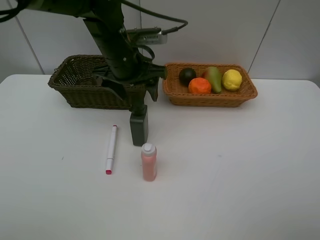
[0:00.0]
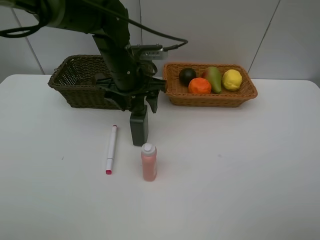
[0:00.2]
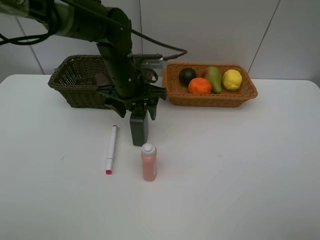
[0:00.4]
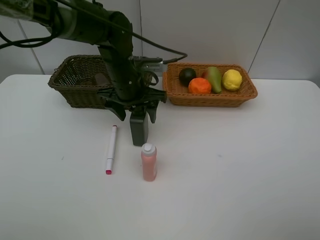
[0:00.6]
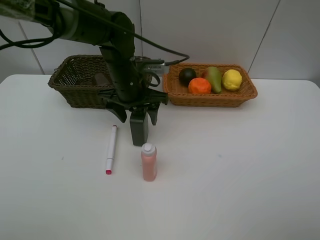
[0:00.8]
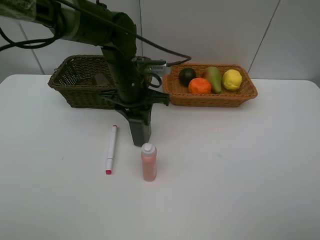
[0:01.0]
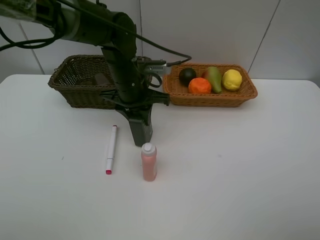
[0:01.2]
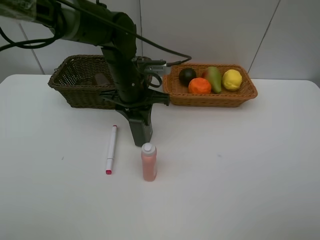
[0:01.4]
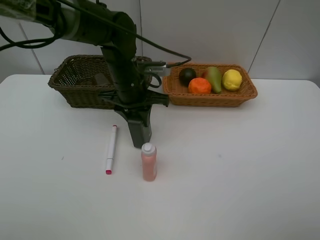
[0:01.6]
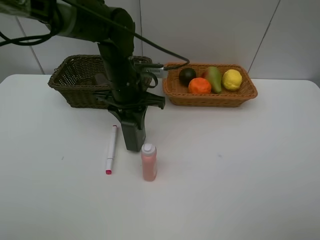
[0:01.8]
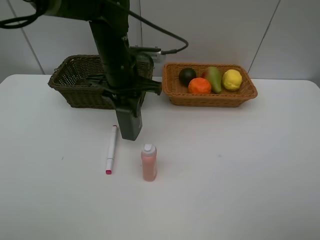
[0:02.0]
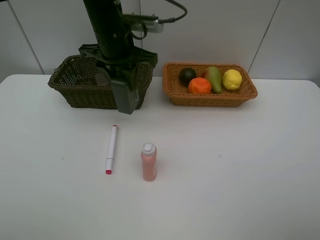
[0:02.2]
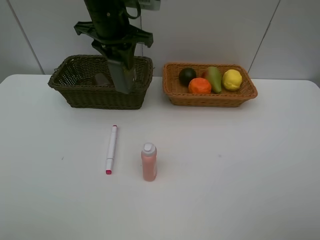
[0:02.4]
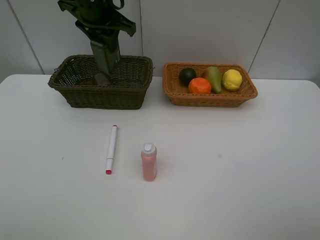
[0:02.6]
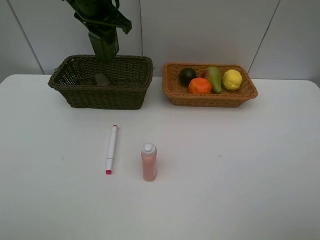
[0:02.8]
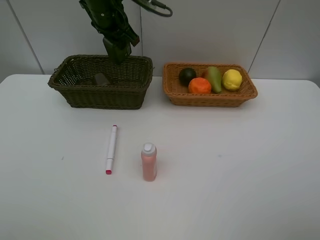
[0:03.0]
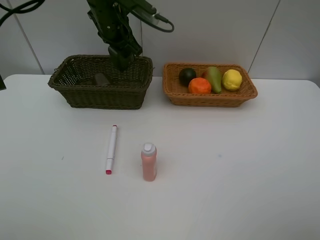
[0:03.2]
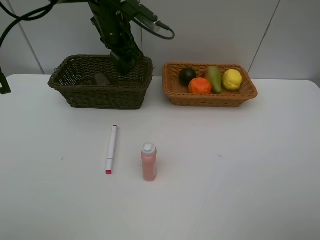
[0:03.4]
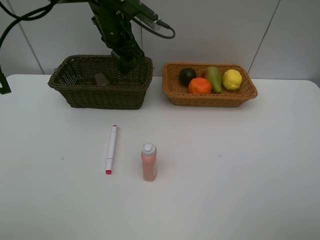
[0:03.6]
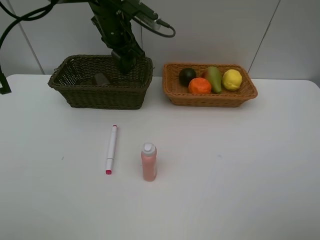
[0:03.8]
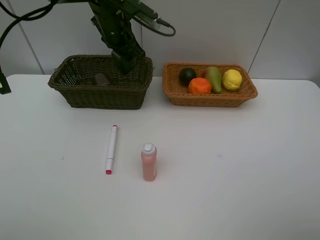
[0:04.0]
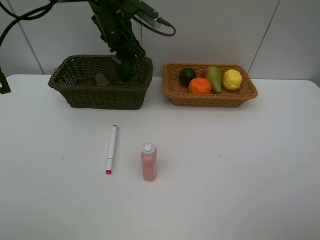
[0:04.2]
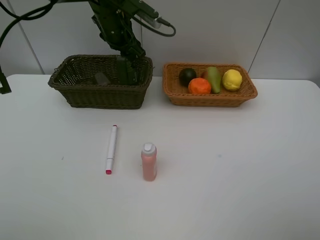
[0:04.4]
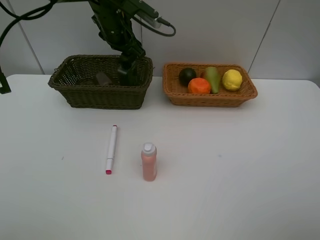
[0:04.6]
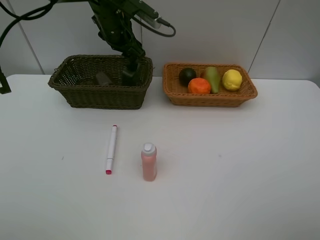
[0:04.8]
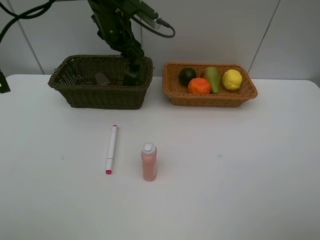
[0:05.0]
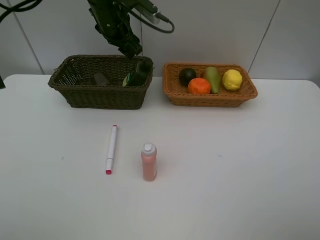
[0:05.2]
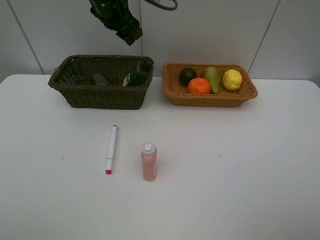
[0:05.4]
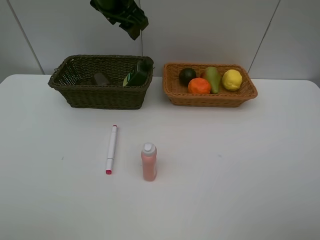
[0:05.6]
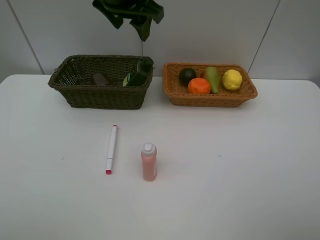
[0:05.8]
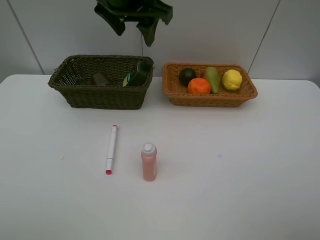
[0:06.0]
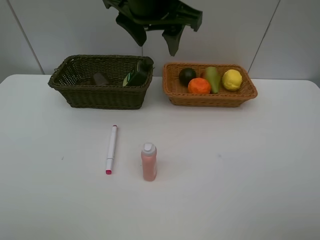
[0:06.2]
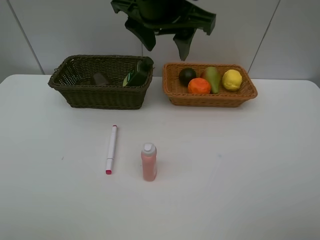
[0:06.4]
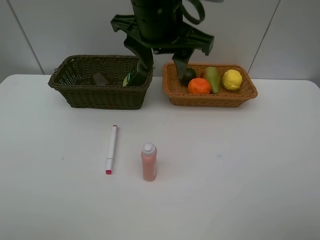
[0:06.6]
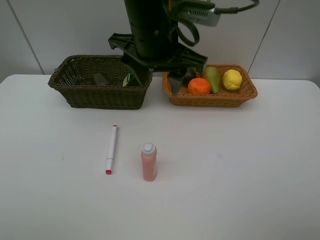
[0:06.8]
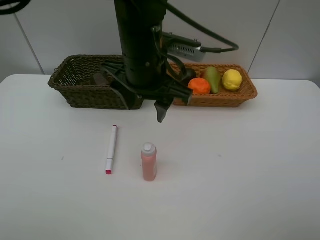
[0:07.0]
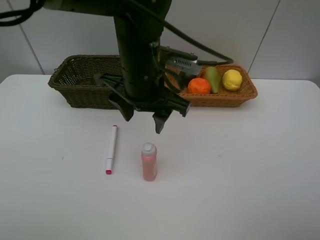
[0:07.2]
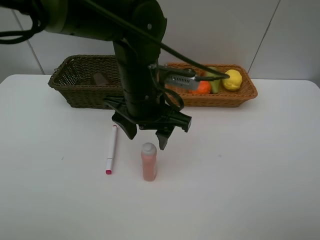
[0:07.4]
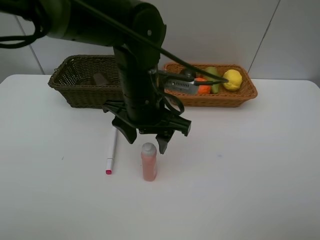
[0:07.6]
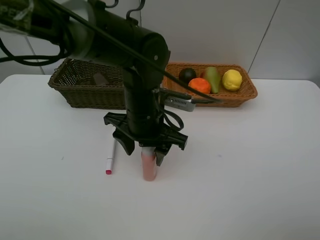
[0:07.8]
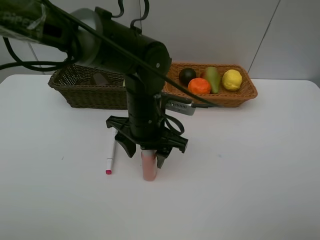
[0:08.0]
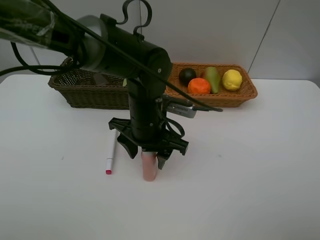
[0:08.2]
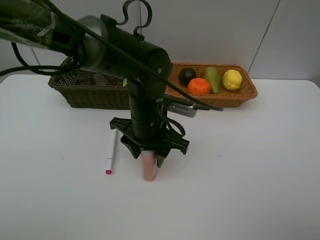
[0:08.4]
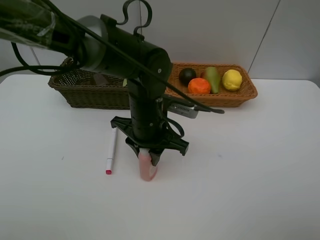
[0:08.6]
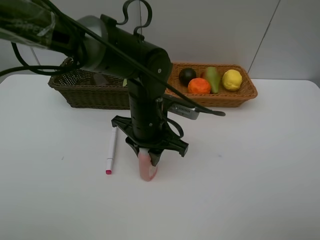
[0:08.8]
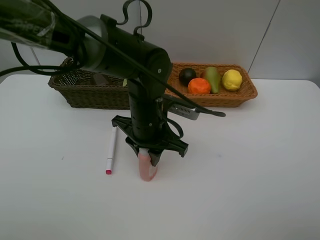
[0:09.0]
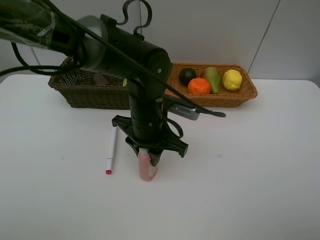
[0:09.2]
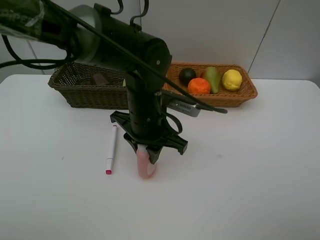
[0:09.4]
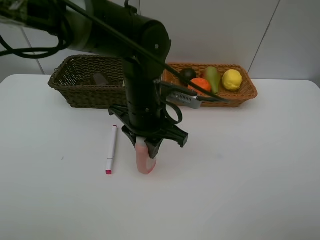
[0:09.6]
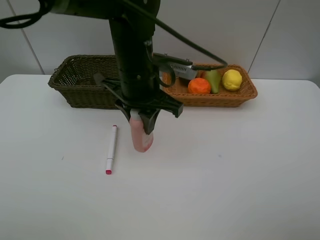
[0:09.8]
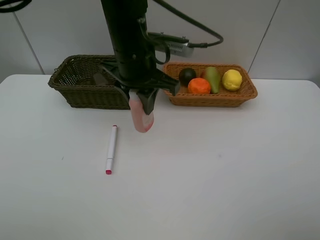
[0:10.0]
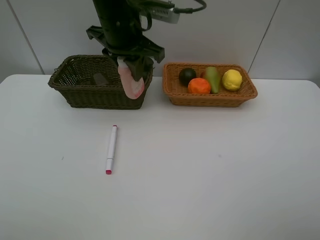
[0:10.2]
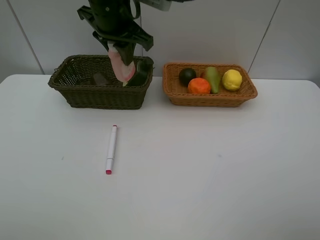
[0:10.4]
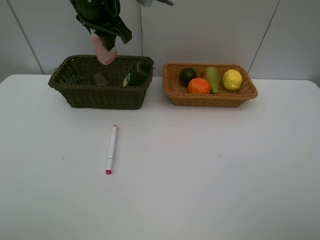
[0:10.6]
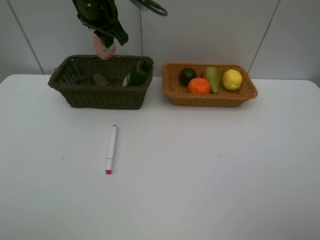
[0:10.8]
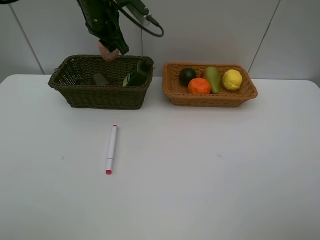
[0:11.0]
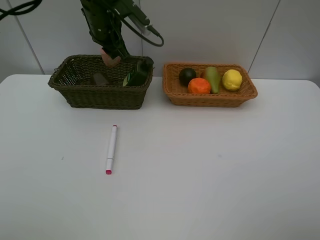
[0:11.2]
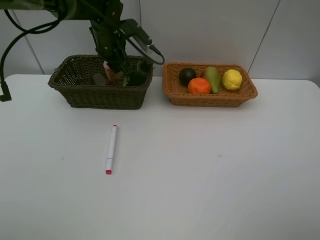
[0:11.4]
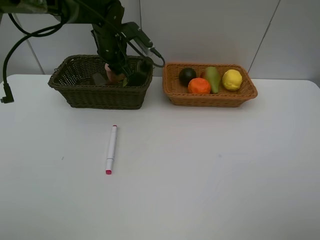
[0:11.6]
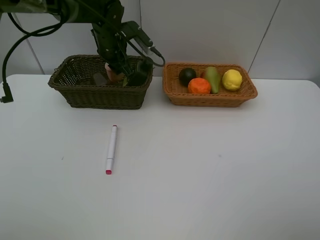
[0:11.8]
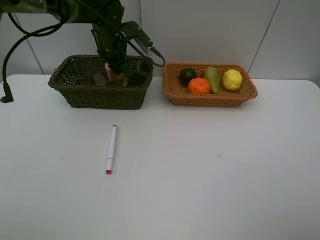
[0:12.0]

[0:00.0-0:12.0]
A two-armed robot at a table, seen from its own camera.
Task of the whole recording: Place multiple objects separately in different baskets.
Step, 0.0 to 2.0 s: Pick up the hard facial cleanser with left gripper.
Step, 2.2 to 5.2 s: Place the hard facial cleanser in the dark basket with left gripper.
Step, 5.4 to 9.4 s: Pick up the laundry detergent with left gripper.
0.0 to 1.6 s: The left gripper is displaced downward by some 5 cm, and closes up.
1.6 to 3.0 s: The left gripper moves upward and forward, approximately 15 cm.
3.0 to 4.4 s: The grippers make only small movements.
4.4 to 6.0 s: The left gripper shifts approximately 15 cm backward, upward and to the right.
6.0 to 7.6 s: The left gripper heads downward and backward, covering approximately 15 cm.
7.6 to 9.0 s: The left gripper ends up some 5 cm from where it was, and closes.
9.0 to 10.4 s: The left gripper travels upward, forward and to the left by approximately 20 cm.
10.4 to 12.0 s: The left gripper heads downward and forward, covering approximately 15 cm.

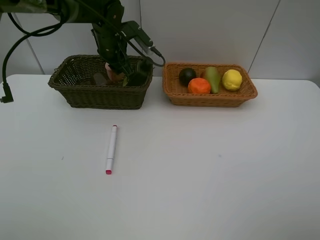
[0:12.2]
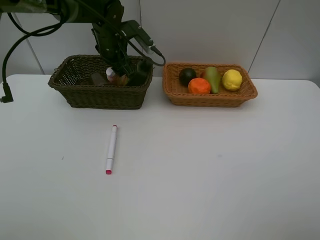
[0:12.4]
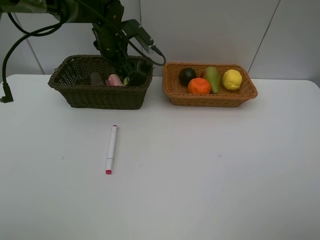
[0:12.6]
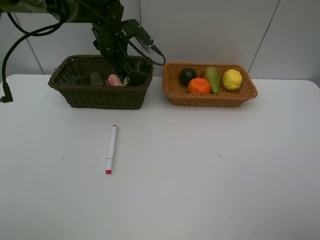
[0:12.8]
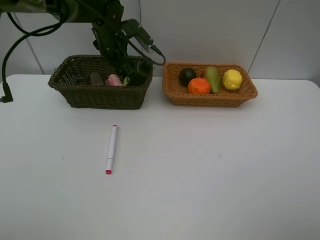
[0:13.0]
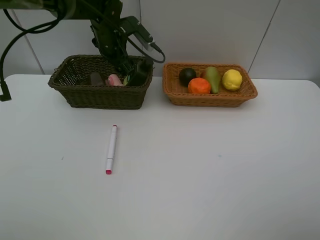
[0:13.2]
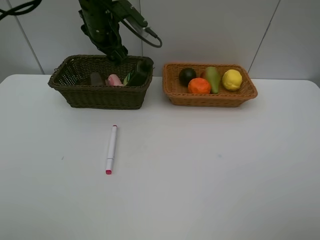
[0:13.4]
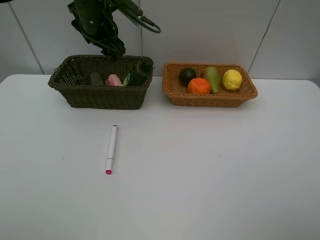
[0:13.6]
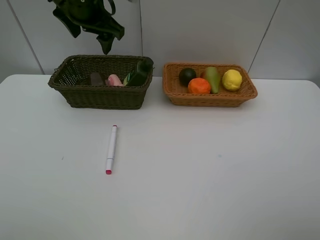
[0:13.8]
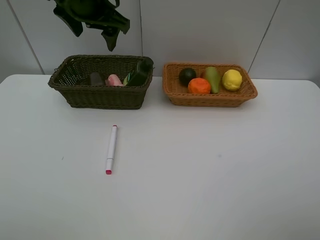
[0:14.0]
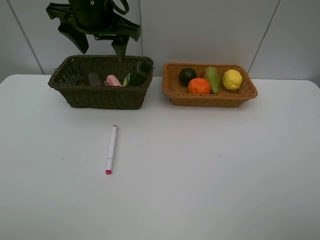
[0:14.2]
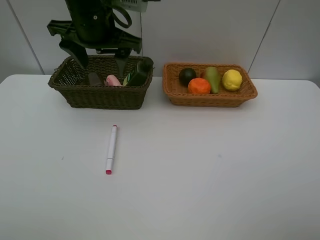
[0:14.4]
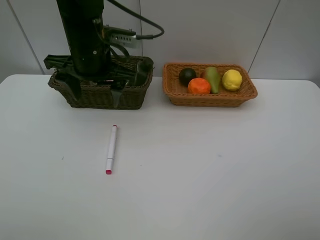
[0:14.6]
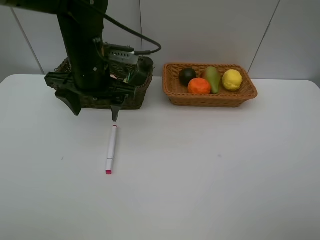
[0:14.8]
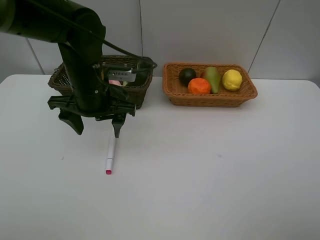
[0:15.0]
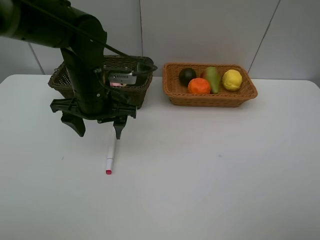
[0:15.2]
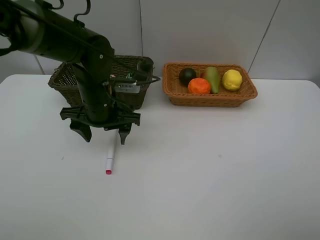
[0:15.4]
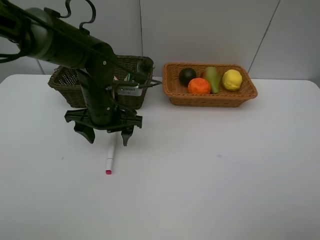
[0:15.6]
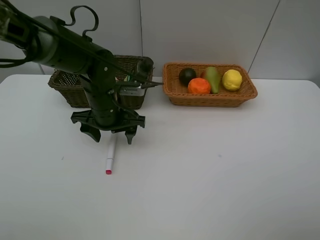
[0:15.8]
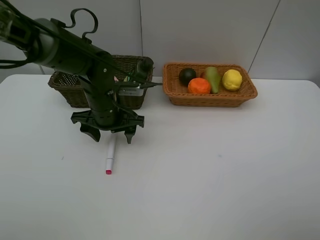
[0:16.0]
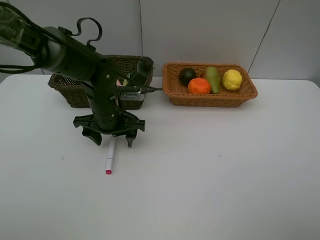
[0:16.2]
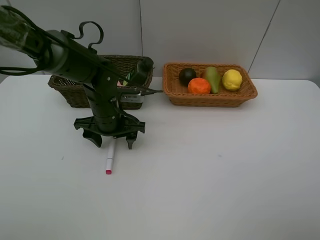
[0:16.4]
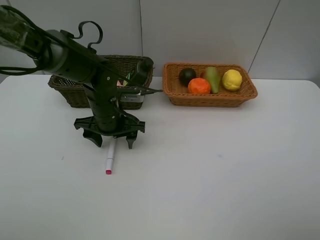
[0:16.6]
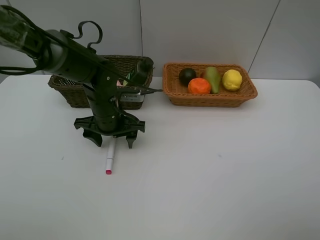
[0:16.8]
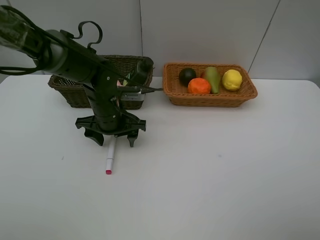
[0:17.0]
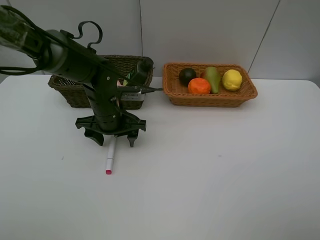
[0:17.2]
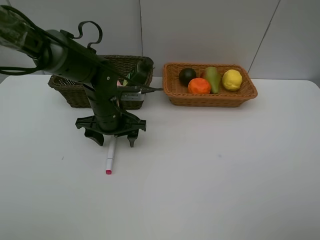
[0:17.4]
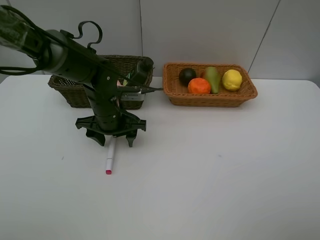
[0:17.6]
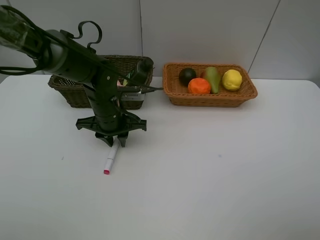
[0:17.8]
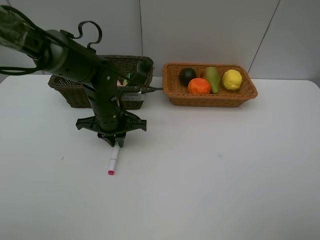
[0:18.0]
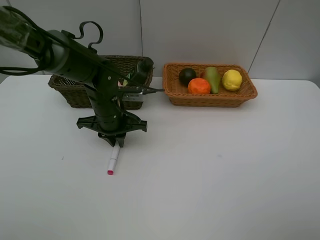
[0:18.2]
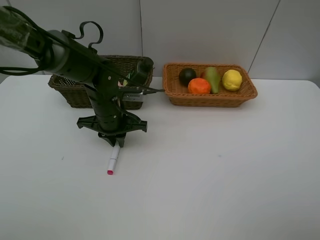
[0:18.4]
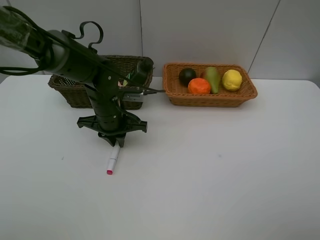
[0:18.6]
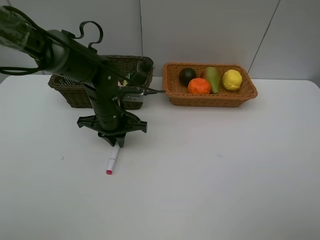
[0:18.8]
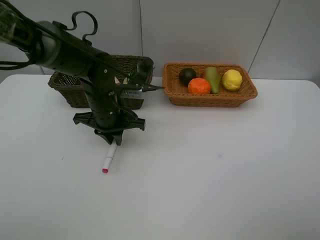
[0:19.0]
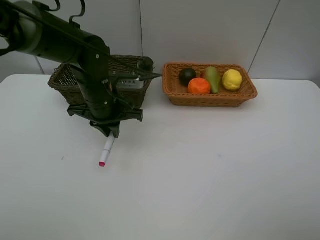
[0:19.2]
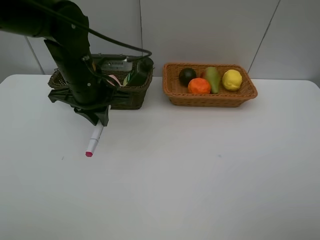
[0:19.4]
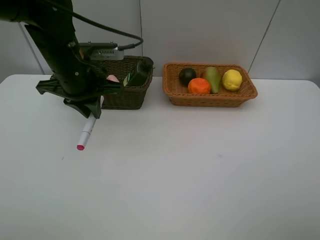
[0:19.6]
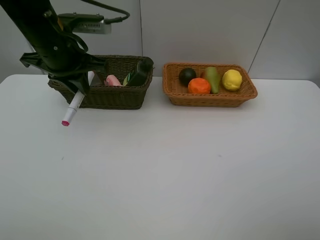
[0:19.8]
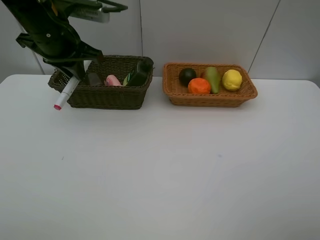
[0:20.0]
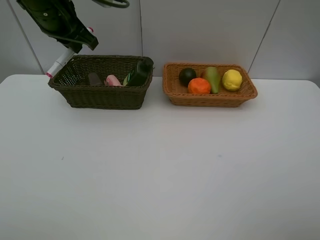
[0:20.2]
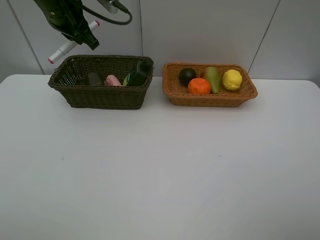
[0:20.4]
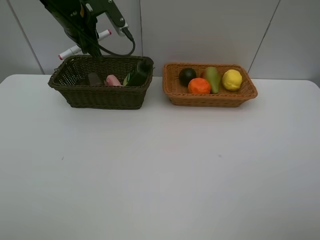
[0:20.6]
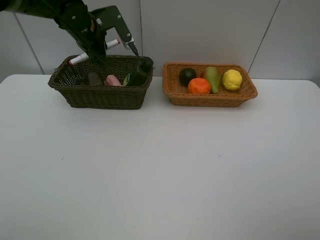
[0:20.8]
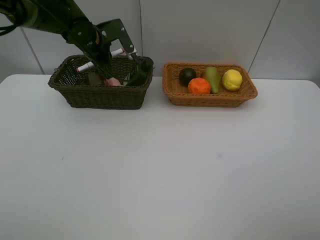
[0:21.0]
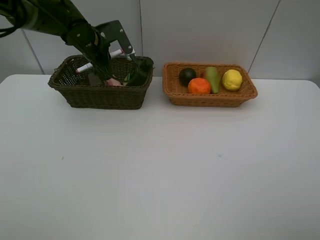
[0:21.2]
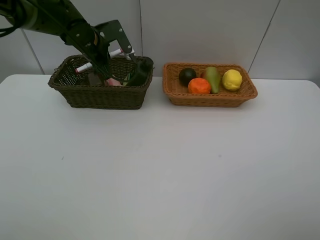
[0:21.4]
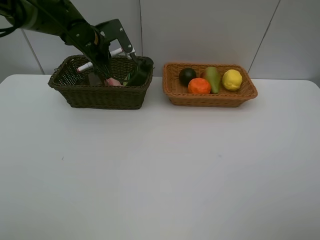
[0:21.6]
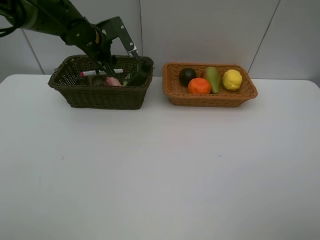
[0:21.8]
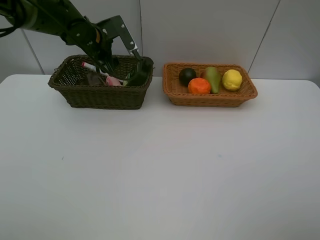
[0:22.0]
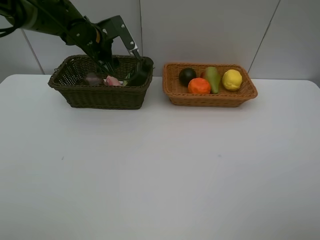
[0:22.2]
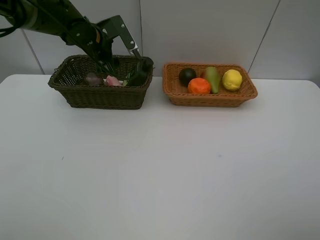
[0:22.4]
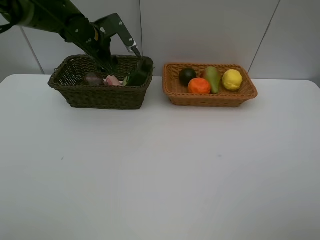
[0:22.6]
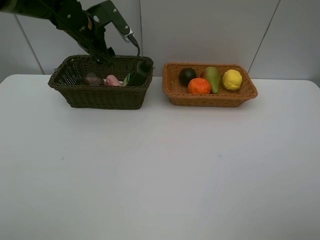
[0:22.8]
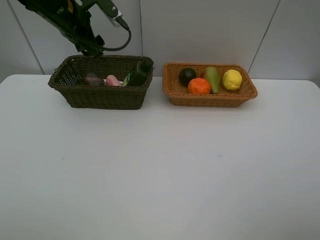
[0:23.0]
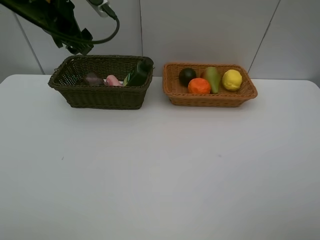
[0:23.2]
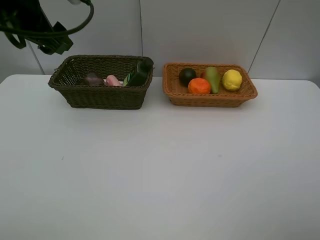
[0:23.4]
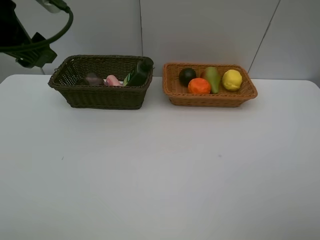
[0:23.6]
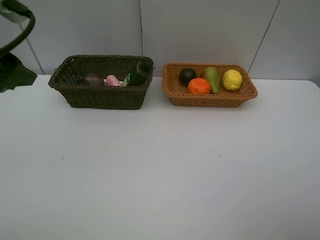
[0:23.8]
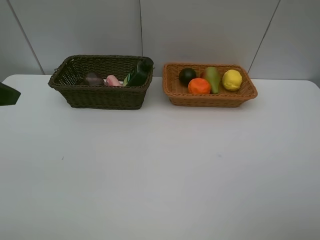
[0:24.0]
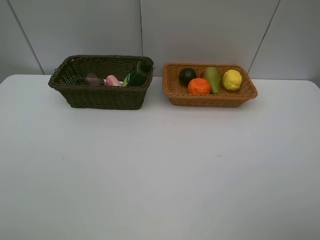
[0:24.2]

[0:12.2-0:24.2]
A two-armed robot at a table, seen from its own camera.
Task of the whole recording: Place multiple objects separately in different baskets.
Step, 13.4 to 19.0 s: Pick up the red marker with left gripper.
Step, 19.2 to 22.0 s: Place the red marker in the dark basket with left gripper.
12.2 to 13.8 s: The left gripper goes approximately 15 cm upward and backward, and opens up.
13.8 to 15.2 s: The left gripper shifts roughly 15 cm downward and backward.
15.2 to 16.6 s: The left gripper moves downward, some 5 cm.
16.6 to 18.2 s: The left gripper closes up.
18.2 to 19.8 s: The left gripper shifts about 15 cm upward and to the left.
19.8 to 21.2 s: The left gripper travels forward and downward by about 15 cm.
21.2 to 22.6 s: The left gripper opens up.
22.6 to 24.2 s: The left gripper travels backward by approximately 35 cm.
